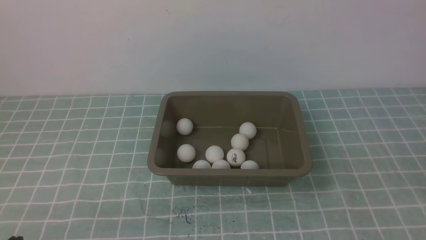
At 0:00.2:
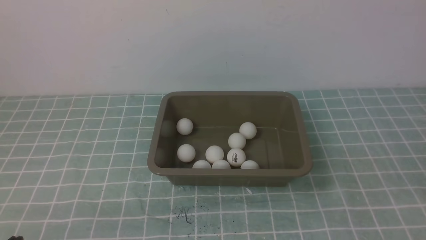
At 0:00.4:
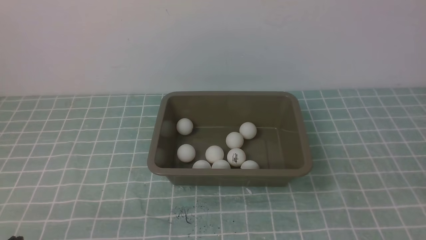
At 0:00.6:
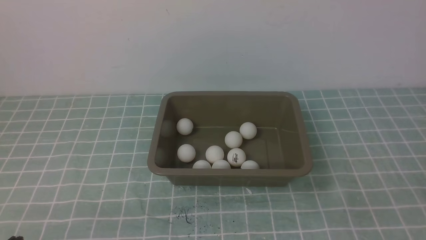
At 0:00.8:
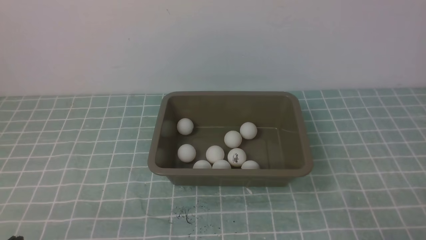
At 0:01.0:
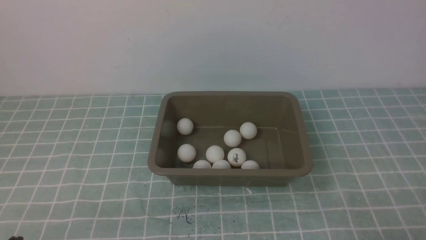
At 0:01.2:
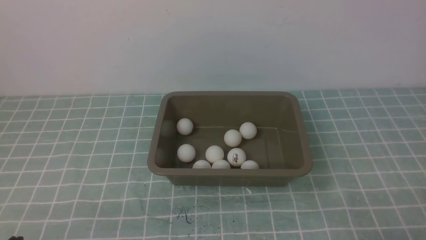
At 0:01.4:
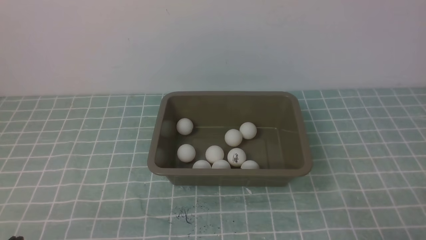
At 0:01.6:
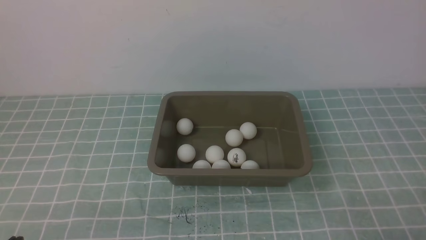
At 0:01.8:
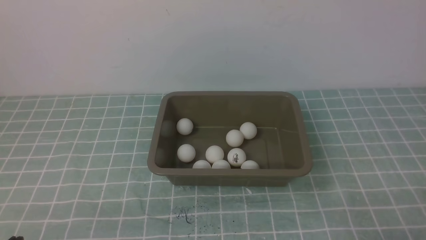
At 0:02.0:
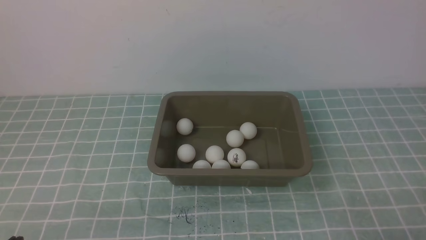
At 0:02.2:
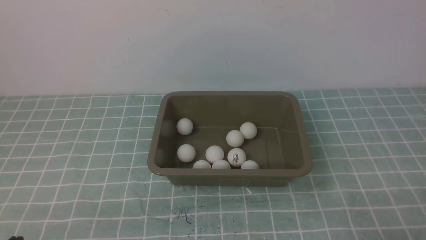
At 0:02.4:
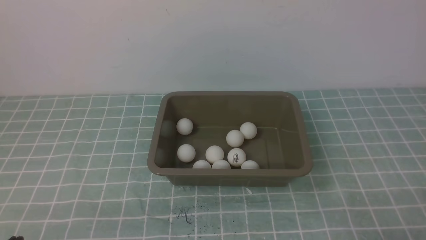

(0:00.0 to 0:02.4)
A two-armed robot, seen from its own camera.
0:01.2 - 0:02.4: Neither gripper changes place.
